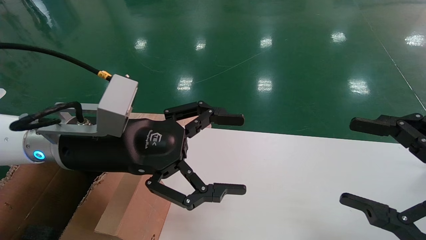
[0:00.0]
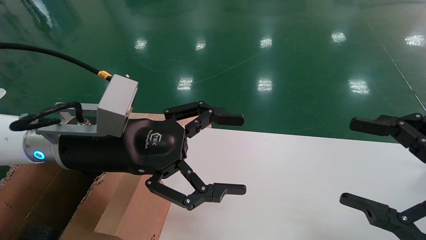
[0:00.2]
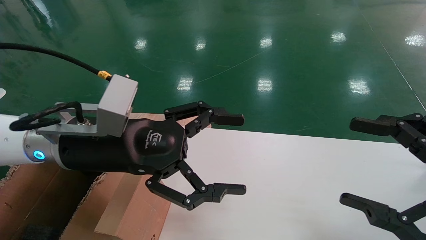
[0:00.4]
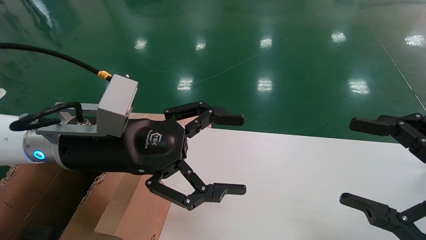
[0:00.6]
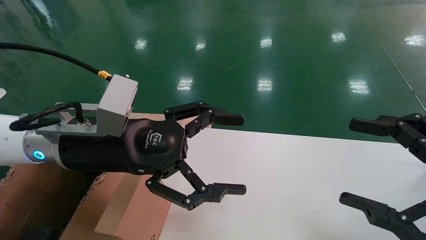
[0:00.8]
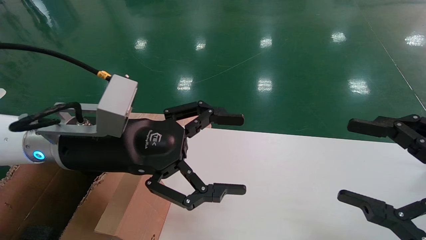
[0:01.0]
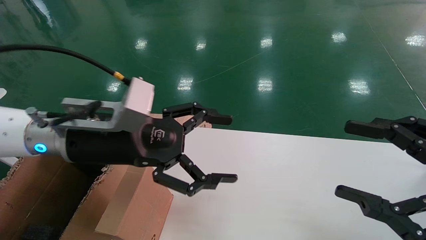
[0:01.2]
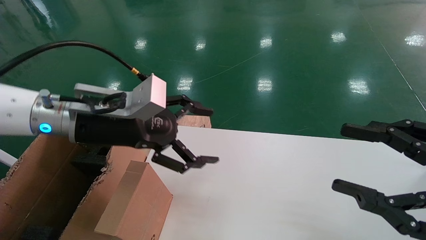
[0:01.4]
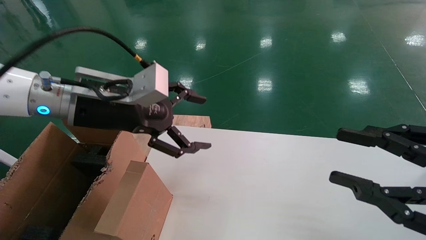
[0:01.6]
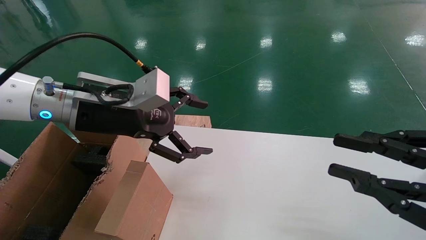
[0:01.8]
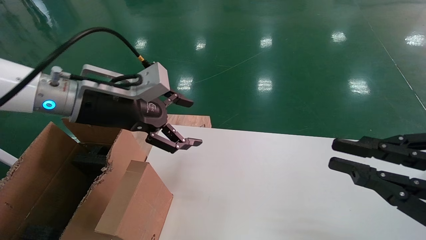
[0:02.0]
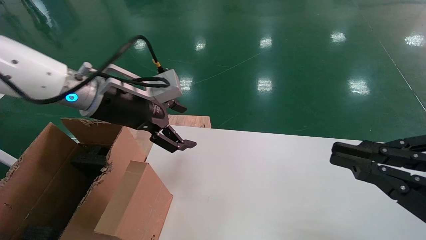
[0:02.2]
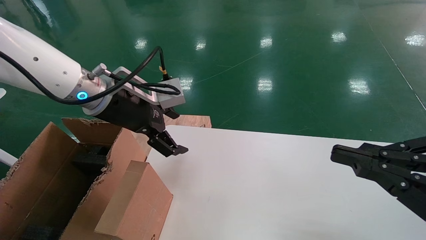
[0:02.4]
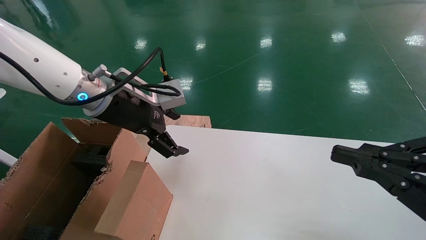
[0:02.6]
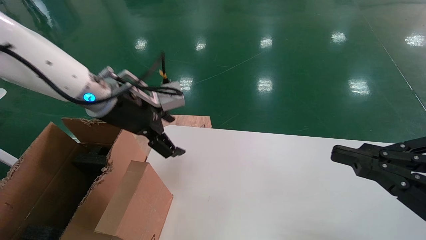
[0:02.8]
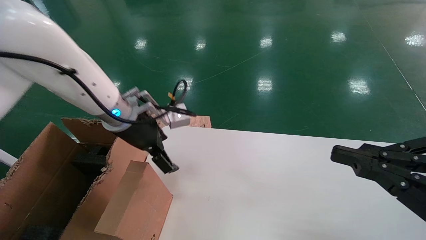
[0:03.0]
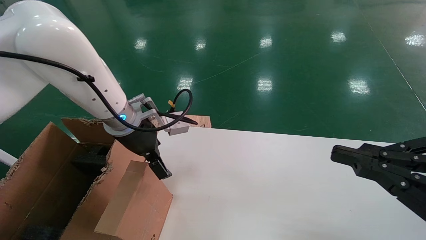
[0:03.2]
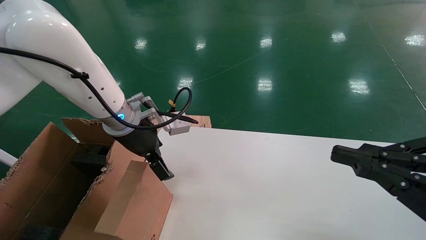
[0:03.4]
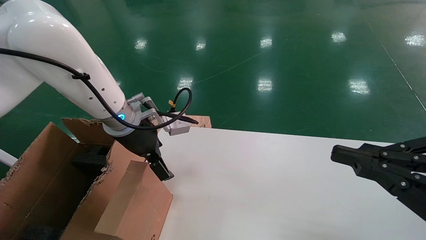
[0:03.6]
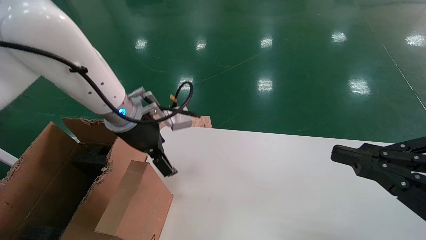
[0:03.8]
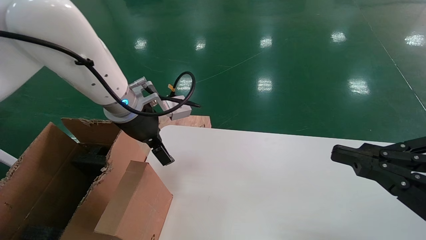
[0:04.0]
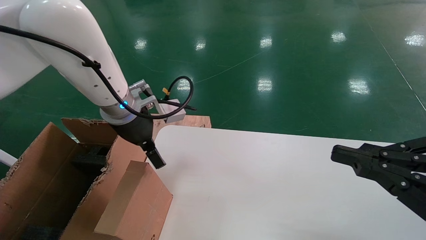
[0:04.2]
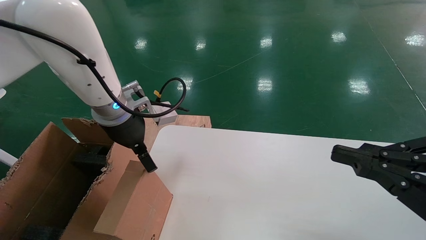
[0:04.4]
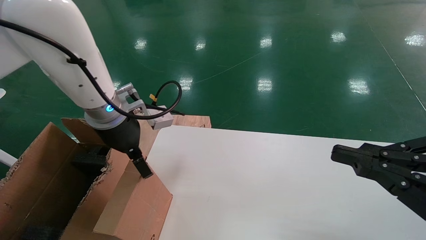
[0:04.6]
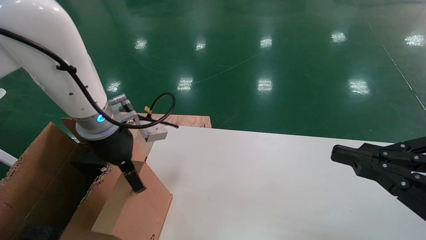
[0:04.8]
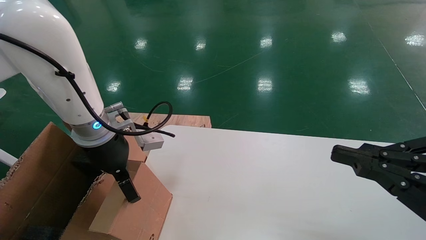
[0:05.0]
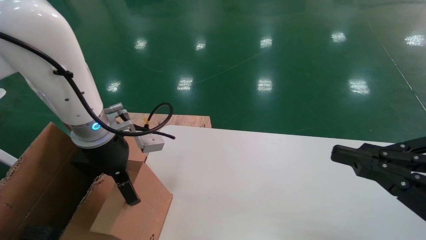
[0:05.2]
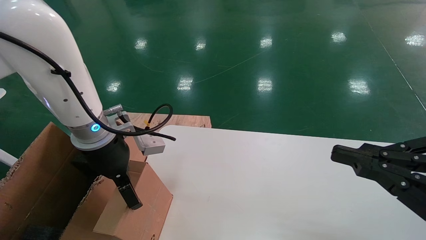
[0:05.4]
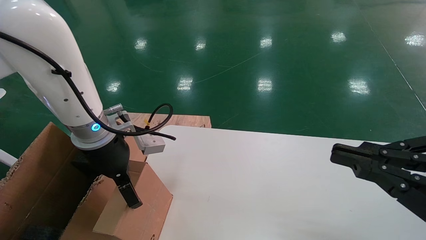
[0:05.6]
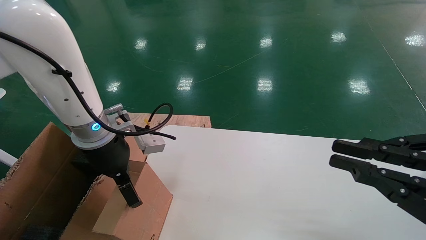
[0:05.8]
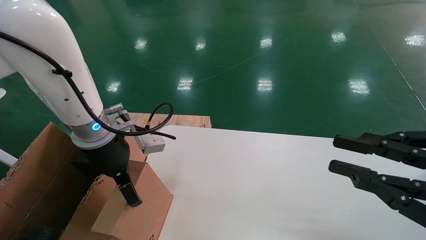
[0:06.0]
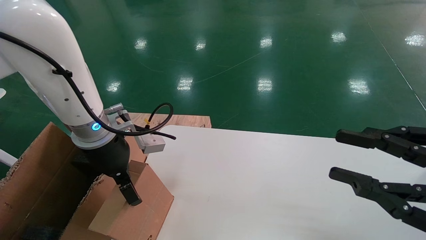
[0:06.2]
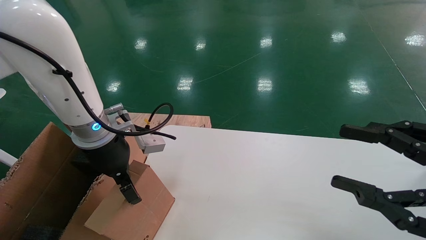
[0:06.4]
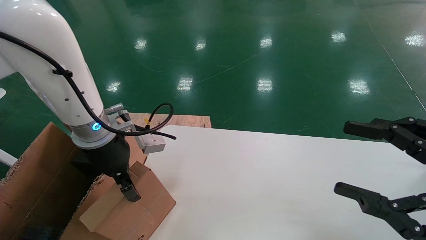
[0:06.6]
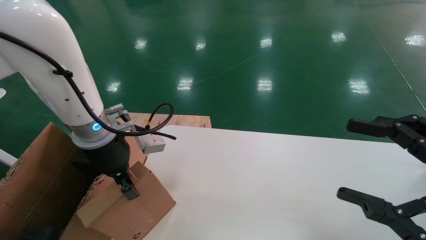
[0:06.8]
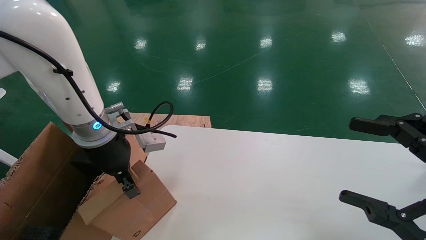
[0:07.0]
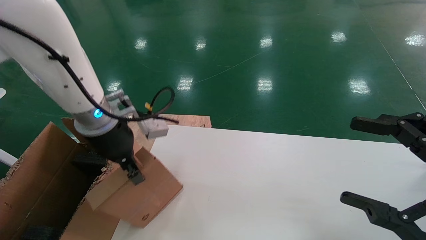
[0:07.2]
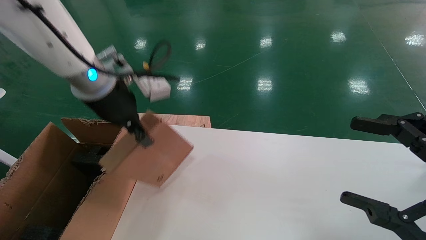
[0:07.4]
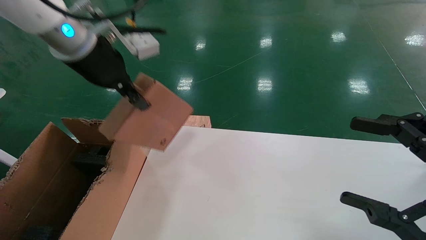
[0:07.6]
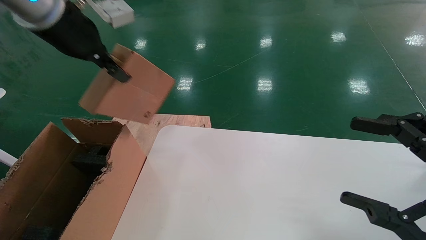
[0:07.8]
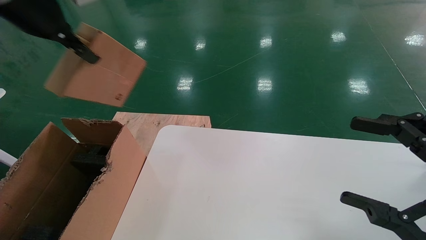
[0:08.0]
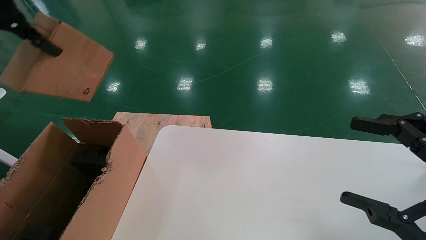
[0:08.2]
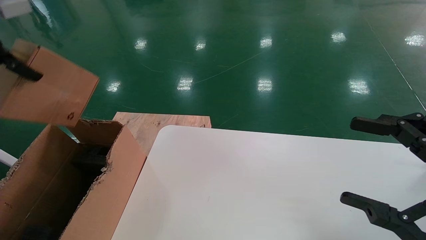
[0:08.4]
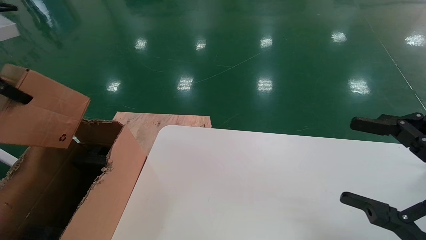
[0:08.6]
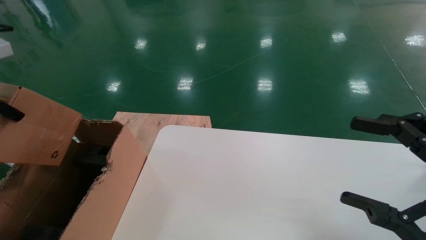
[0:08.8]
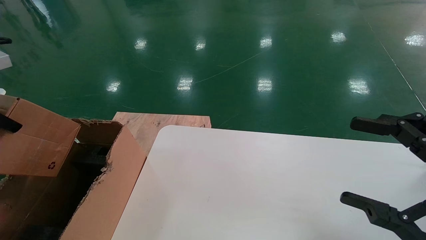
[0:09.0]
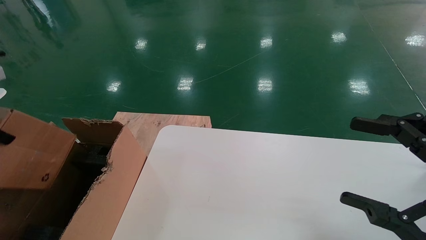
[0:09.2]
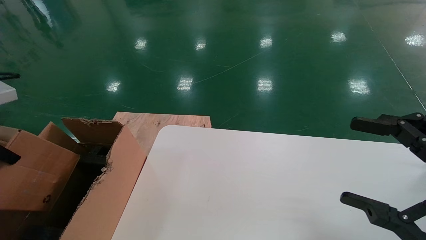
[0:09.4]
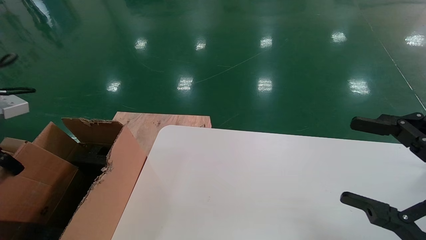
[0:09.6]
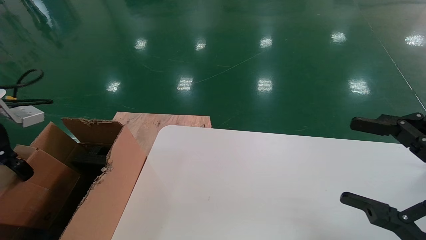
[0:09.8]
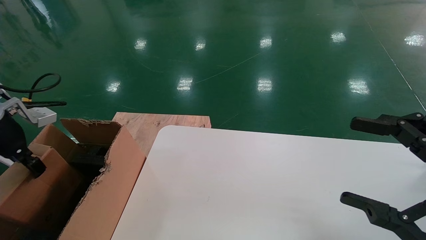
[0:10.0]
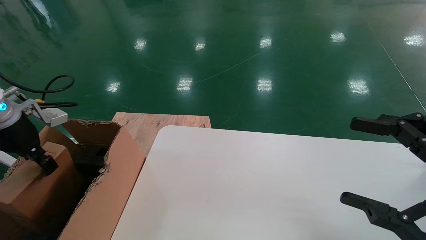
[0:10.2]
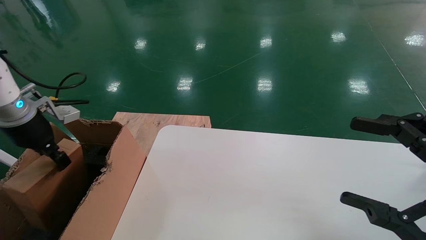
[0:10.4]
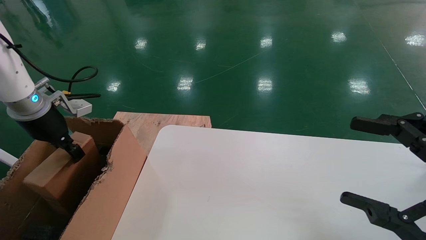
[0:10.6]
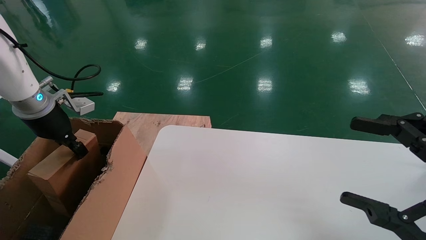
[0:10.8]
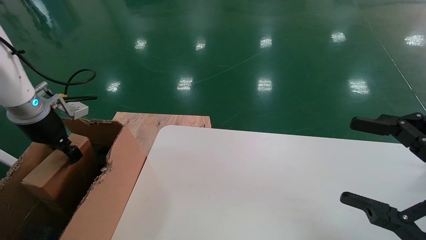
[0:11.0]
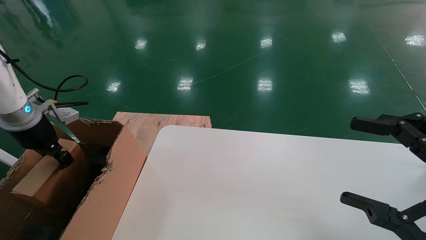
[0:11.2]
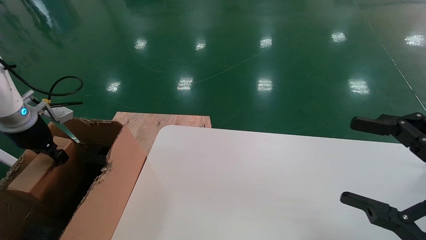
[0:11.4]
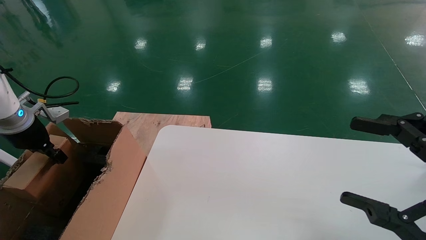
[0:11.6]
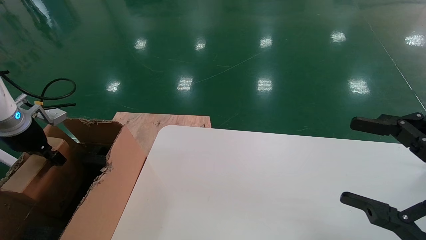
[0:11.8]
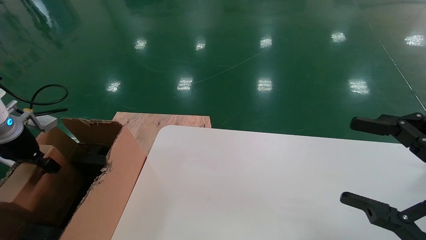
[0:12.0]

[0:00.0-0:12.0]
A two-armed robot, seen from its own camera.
Task of the whole recording: place the small box on the table into the large box on the left.
Step, 0:01.4 to 0:07.0: Pick up the mouse and the power cord paper box.
0:00.0 to 0:01.6: The right gripper closes; the left gripper moves about 5 cm.
0:01.6 to 0:03.0: The left gripper travels forward by roughly 5 cm; the right gripper closes up.
0:03.0 to 0:04.4: There are only small adjustments of the grippers.
0:04.4 to 0:06.0: The grippers make only small movements.
0:06.0 to 0:07.6: The right gripper opens its fingers, while the left gripper shifts about 15 cm upward, and closes its fingers.
0:07.6 to 0:09.0: The left gripper travels to the left and backward by roughly 25 cm.
0:09.0 to 0:10.4: The left gripper heads downward and forward, covering about 15 cm.
0:10.4 to 0:12.0: The left gripper shifts some 10 cm to the left and downward.

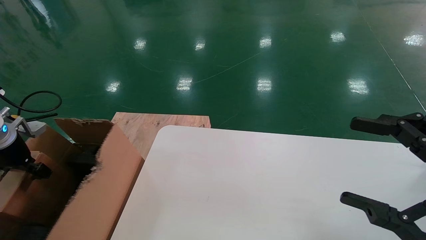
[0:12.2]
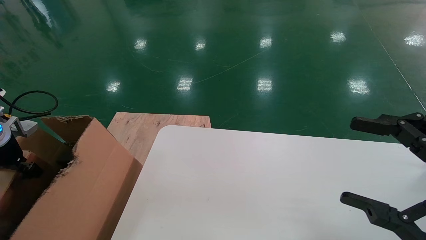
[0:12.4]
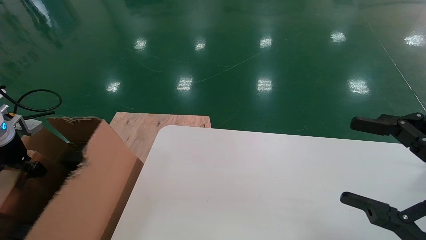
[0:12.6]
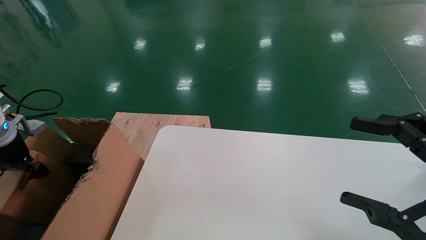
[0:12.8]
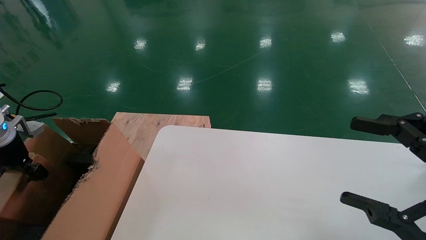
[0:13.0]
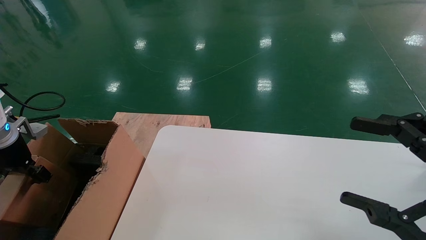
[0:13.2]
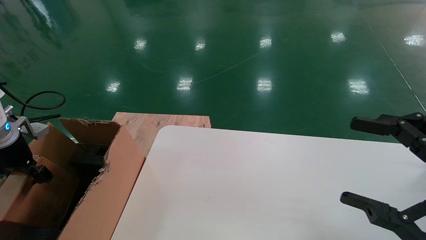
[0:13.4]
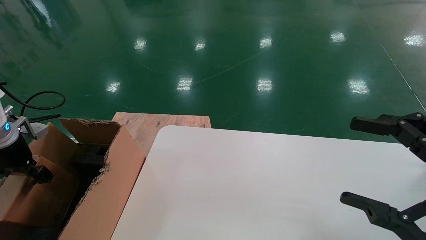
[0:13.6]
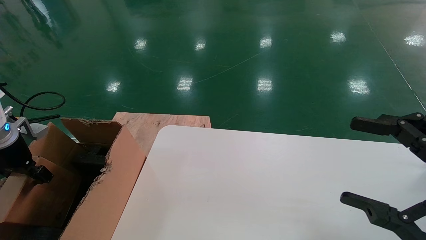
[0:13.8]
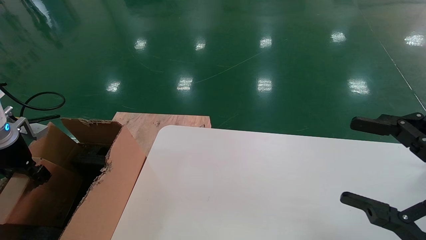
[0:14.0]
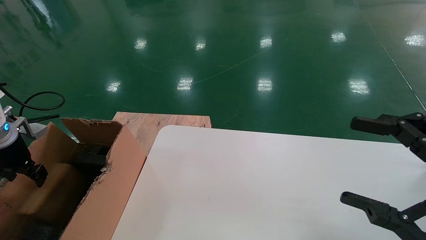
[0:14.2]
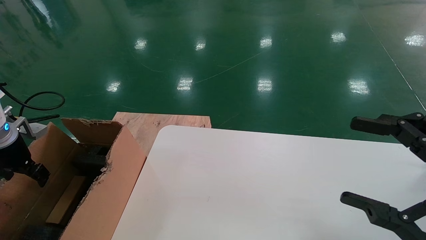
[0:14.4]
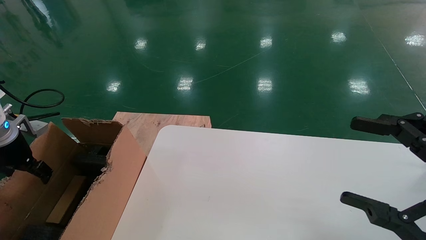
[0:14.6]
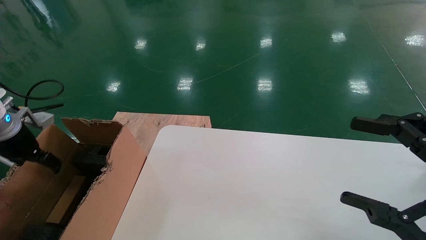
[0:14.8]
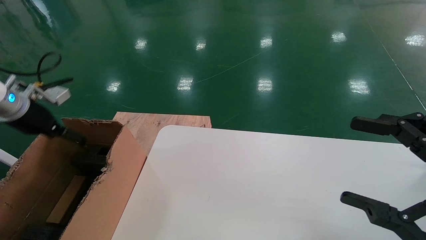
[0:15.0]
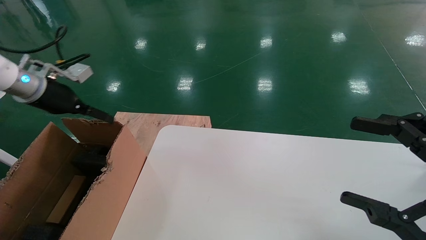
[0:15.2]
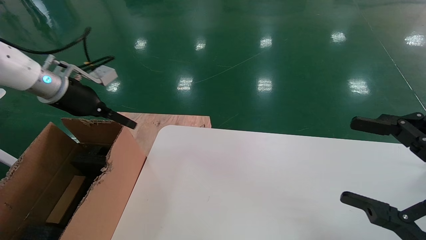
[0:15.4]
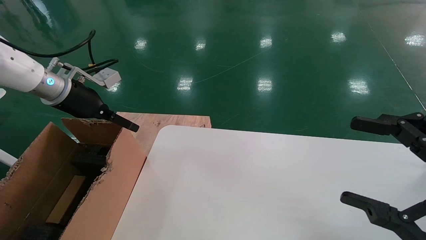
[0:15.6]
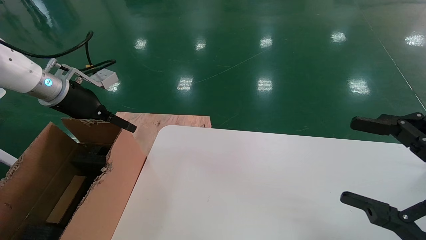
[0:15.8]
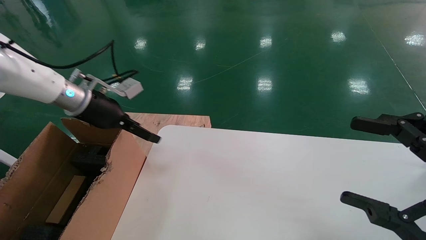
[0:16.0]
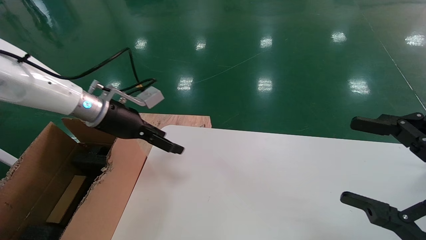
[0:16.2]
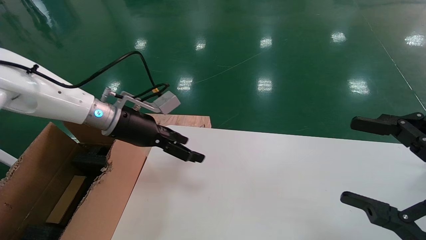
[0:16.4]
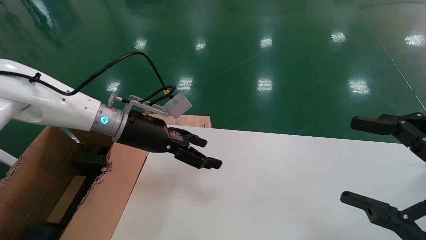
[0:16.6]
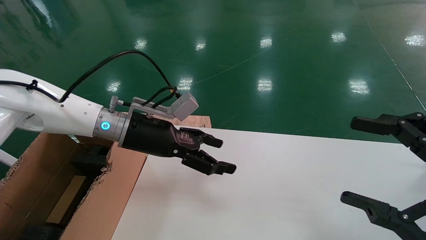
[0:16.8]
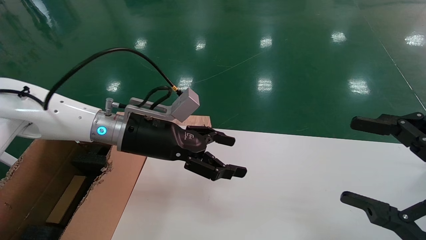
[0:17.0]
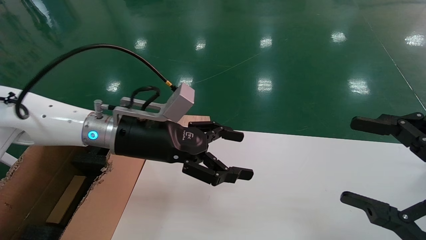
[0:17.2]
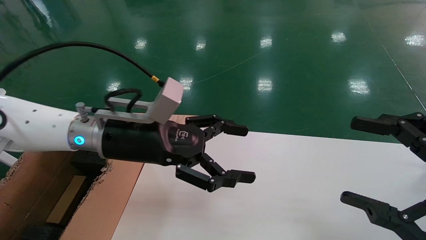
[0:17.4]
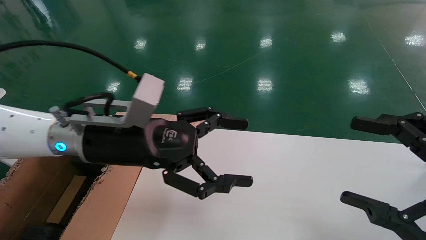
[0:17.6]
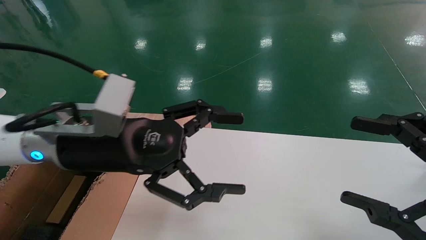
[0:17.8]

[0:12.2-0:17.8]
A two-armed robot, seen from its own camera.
Task of the whole recording: place the small box on the table into the large box on the left.
Step, 0:12.2 to 0:14.6: Place the mouse and the power cord paper box into the container.
0:12.2 to 0:13.6: There are only small adjustments of the grippers.
0:13.6 to 0:15.0: The left gripper goes roughly 5 cm upward, and opens its fingers.
0:15.0 to 0:16.4: The left gripper is displaced to the right by approximately 20 cm.
0:16.4 to 0:17.8: The left gripper goes some 15 cm backward and to the right.
